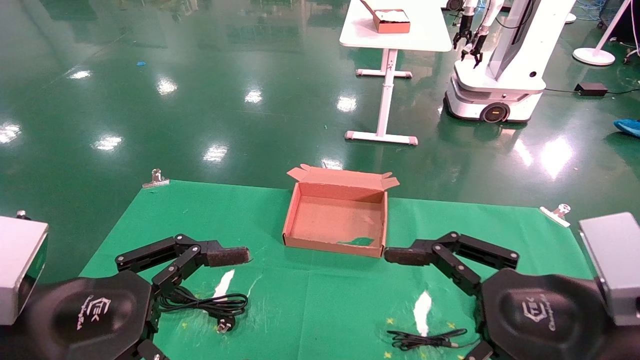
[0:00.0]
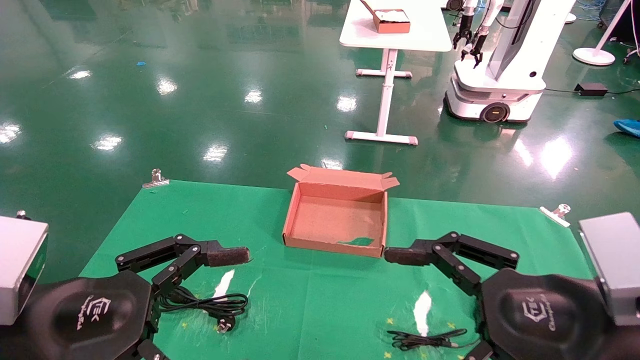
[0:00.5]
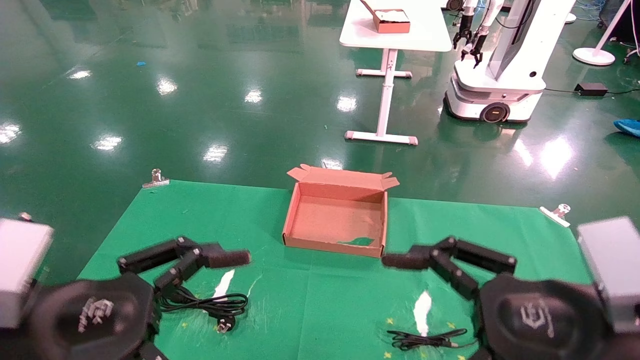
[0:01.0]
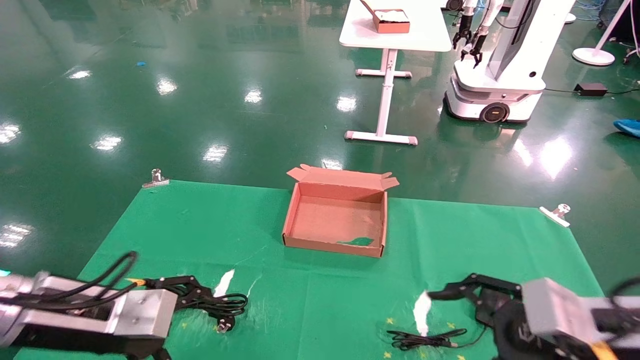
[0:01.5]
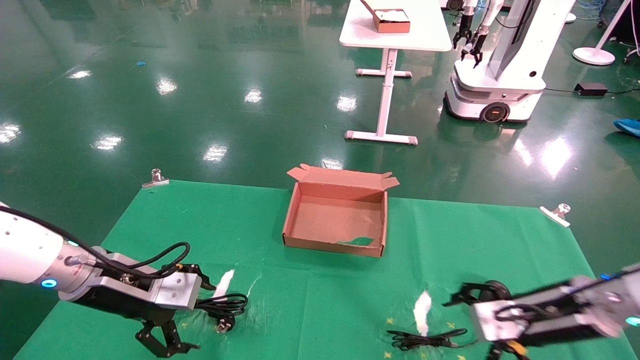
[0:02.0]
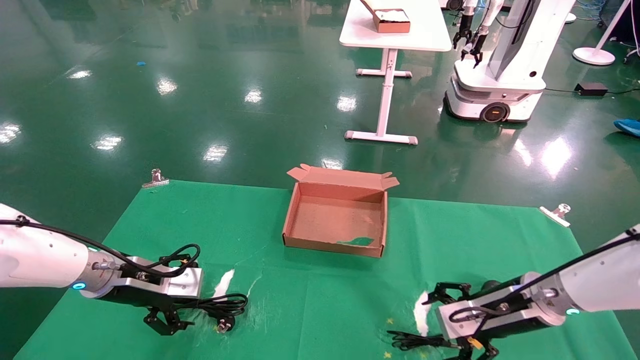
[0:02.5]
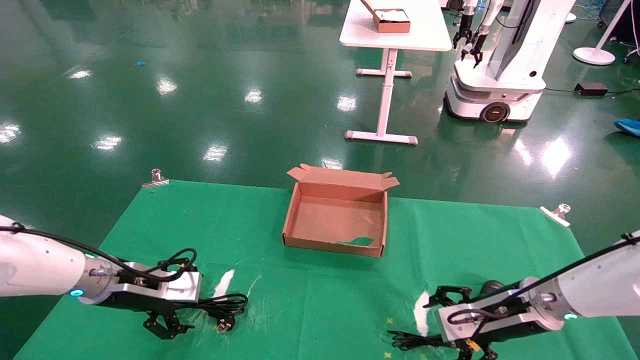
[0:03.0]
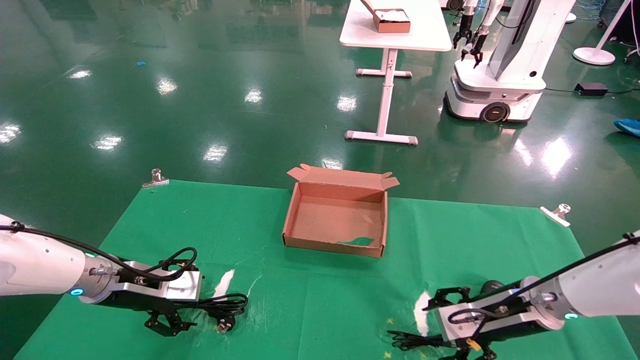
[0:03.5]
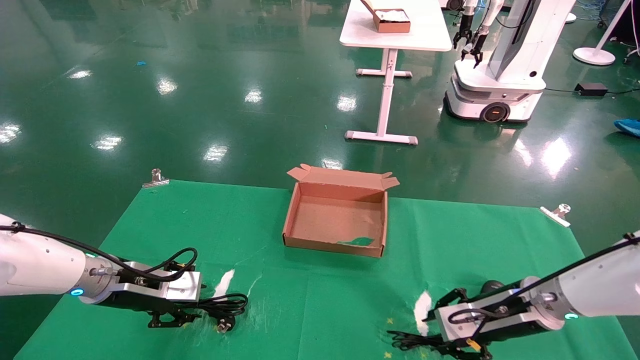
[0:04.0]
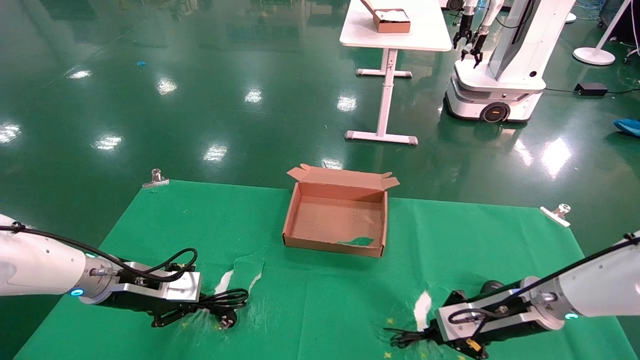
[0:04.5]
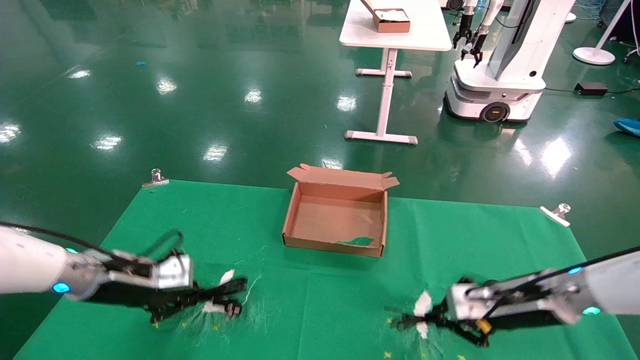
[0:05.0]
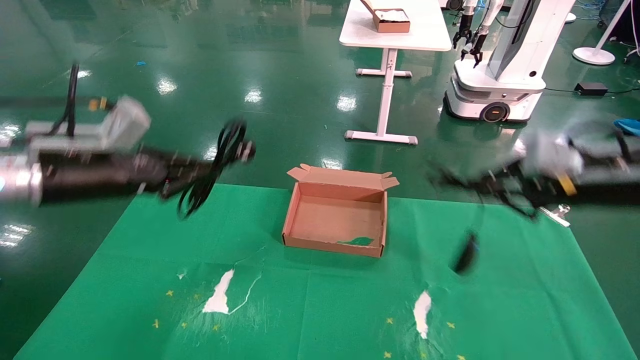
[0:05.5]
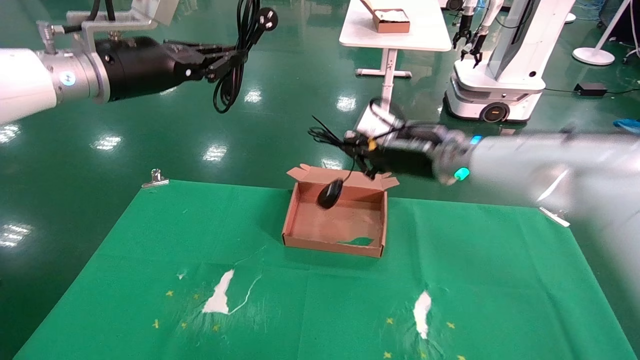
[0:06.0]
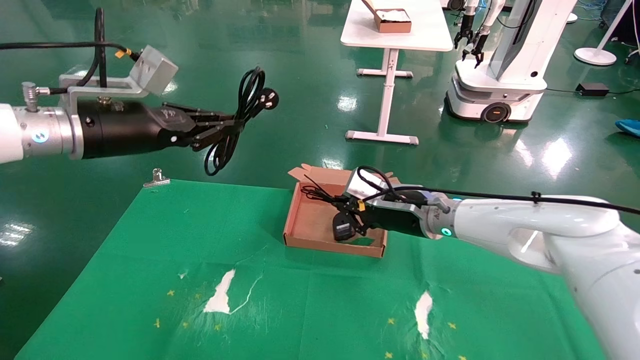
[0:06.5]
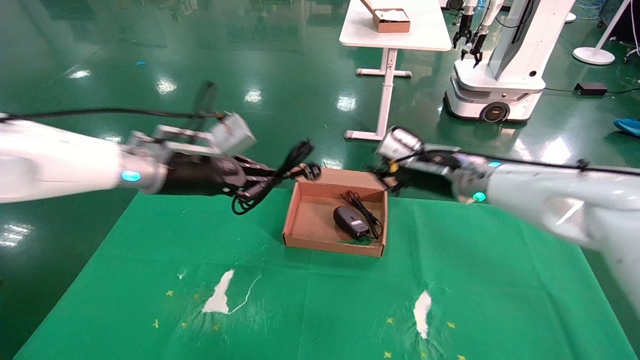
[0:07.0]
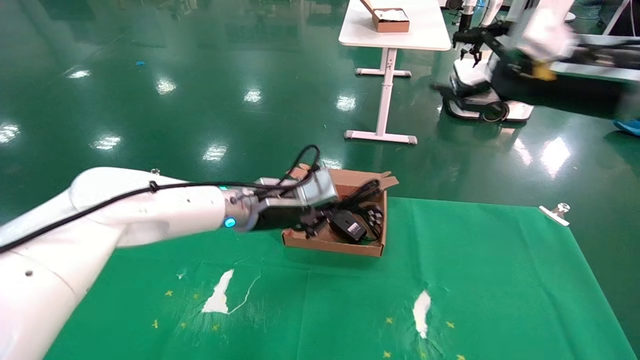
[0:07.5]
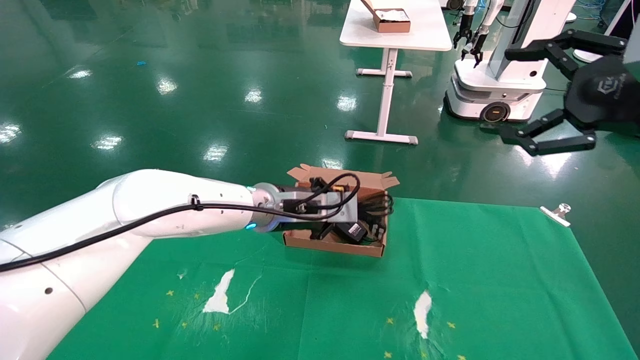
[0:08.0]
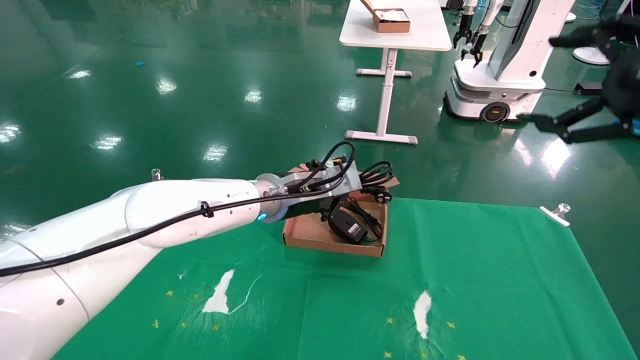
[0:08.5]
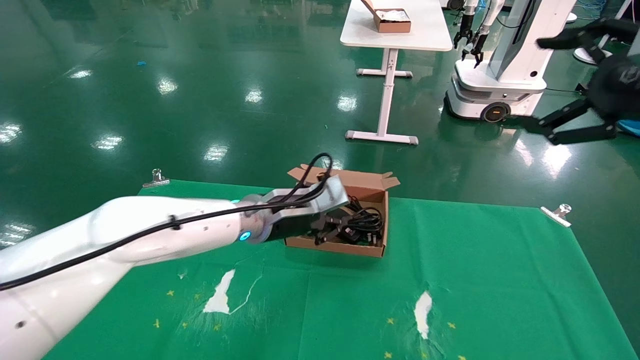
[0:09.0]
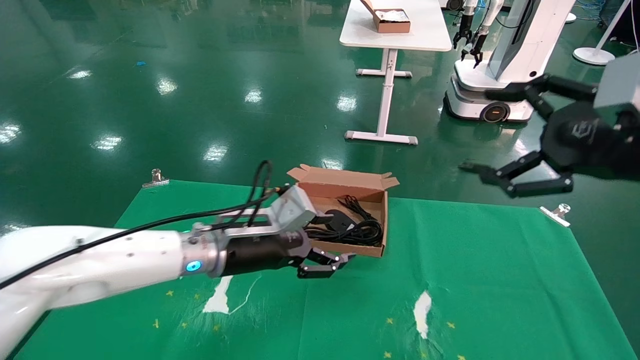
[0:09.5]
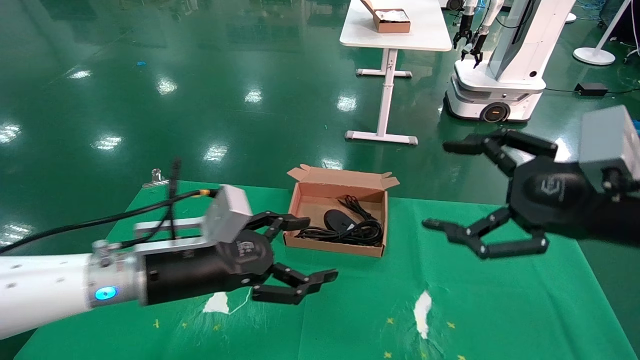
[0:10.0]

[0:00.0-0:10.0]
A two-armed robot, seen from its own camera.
Step, 0:01.5 to 0:04.5: Grab and lift both the mouse and power cord from the accessory packaging area at the same time.
Step, 0:05.0 to 0:09.0: Place the mouse and power cord into the box.
0:00.0 to 0:02.0: The right gripper travels forward and downward by about 20 cm. The left gripper moves forward, about 20 cm.
0:02.0 to 0:04.0: The right gripper ends up approximately 5 cm from where it was, and closes; the left gripper ends up about 5 cm from where it was, and closes.
0:04.0 to 0:06.0: The left gripper goes about 25 cm upward, and closes up. The right gripper shifts about 20 cm upward and to the left, and closes.
0:06.0 to 0:08.0: The right gripper is displaced to the right, backward and upward by some 30 cm, and opens its fingers; the left gripper goes some 25 cm to the right and downward.
0:08.0 to 0:10.0: The right gripper is displaced downward and to the left by some 10 cm, while the left gripper moves backward and to the left, about 20 cm, and opens.

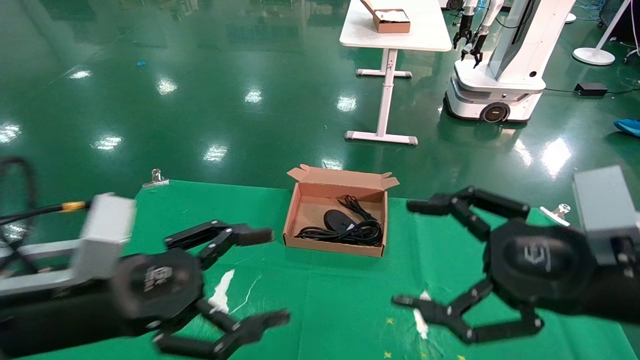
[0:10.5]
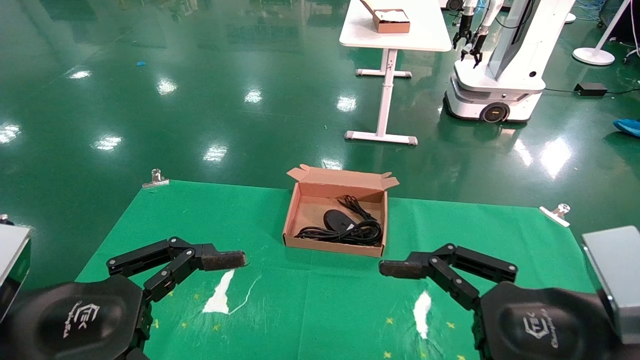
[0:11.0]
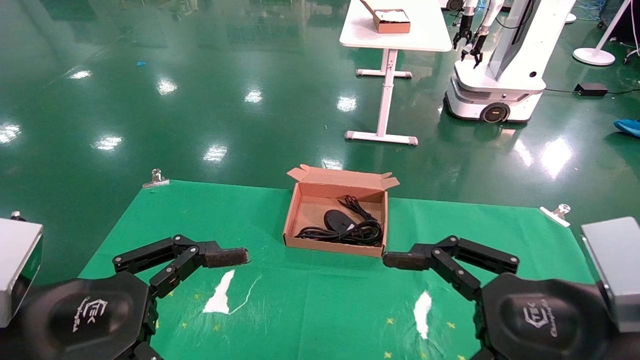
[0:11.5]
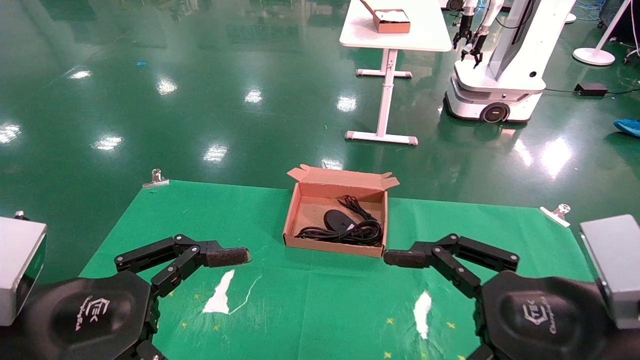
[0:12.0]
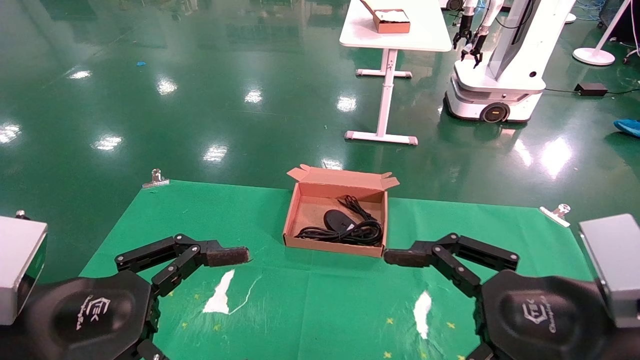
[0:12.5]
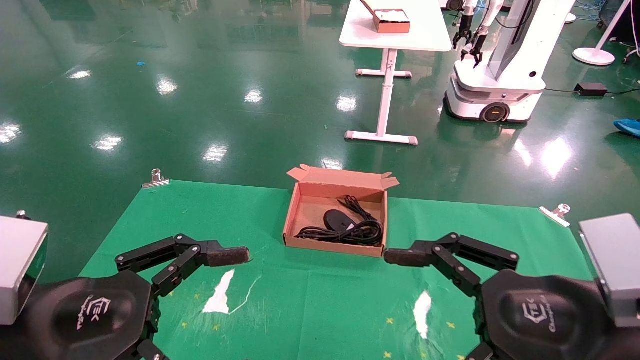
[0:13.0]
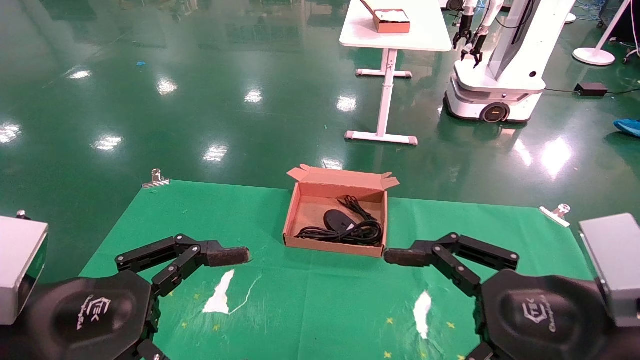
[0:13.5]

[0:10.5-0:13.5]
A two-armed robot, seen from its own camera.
0:12.0 to 0:13.5: Both grippers stay about where they are.
